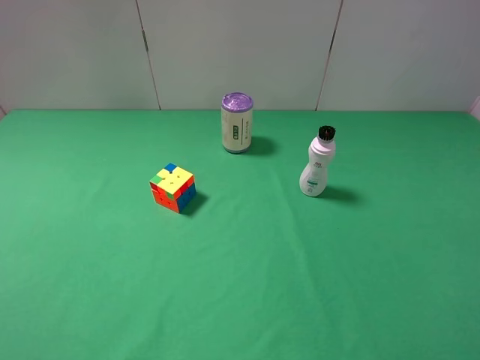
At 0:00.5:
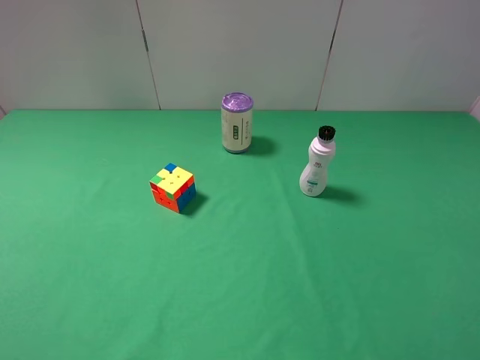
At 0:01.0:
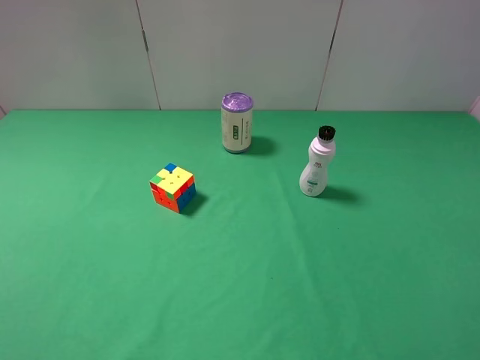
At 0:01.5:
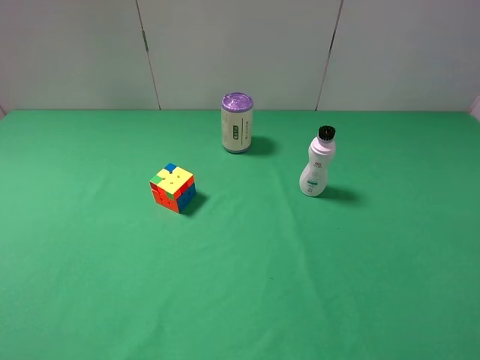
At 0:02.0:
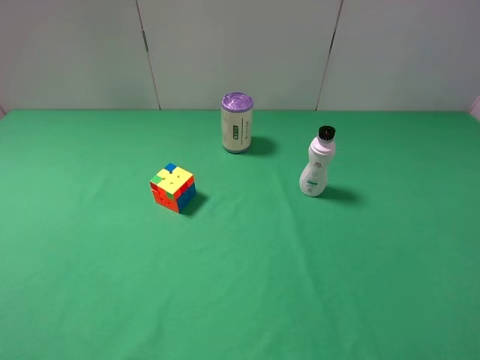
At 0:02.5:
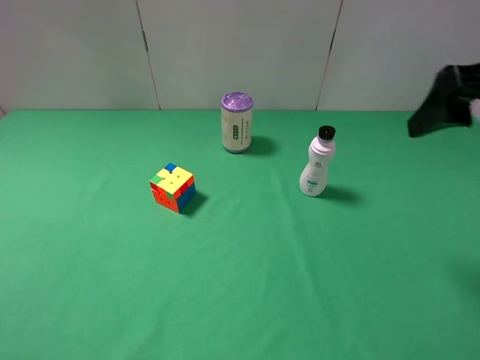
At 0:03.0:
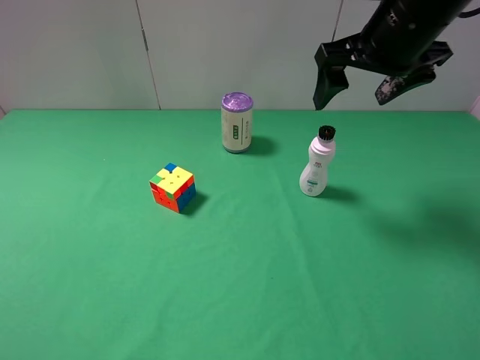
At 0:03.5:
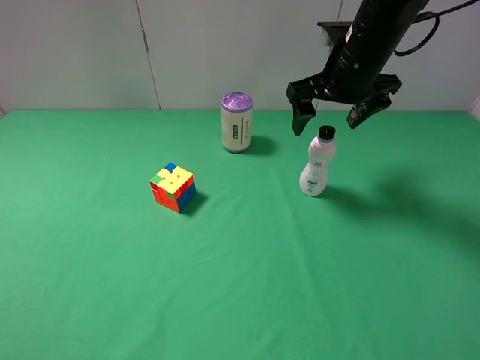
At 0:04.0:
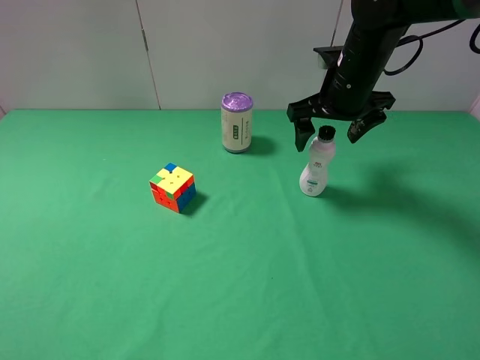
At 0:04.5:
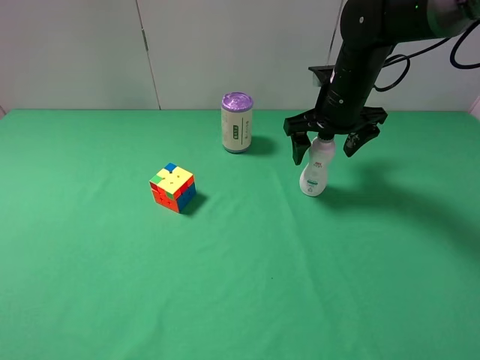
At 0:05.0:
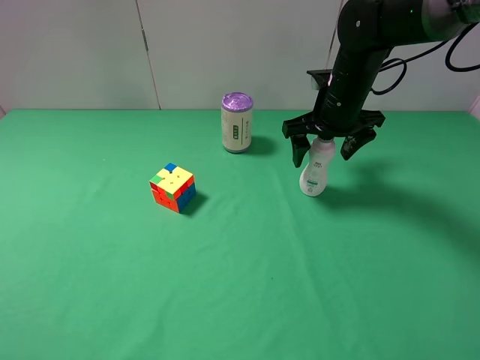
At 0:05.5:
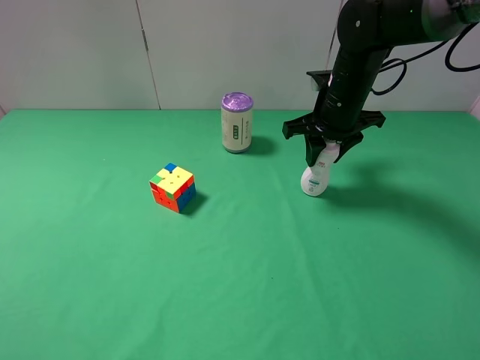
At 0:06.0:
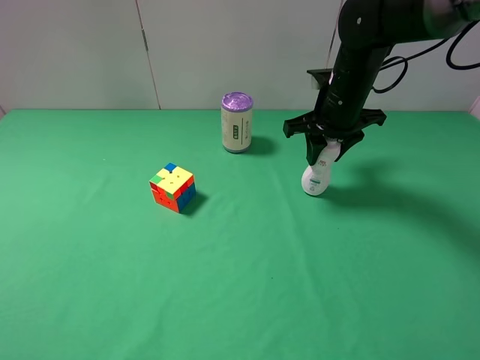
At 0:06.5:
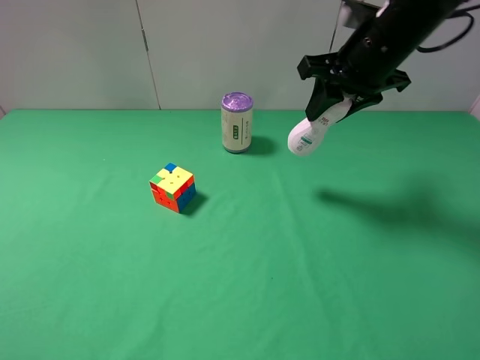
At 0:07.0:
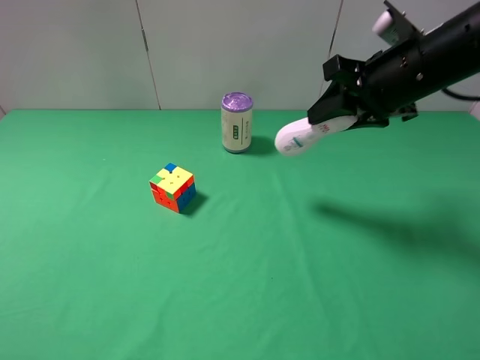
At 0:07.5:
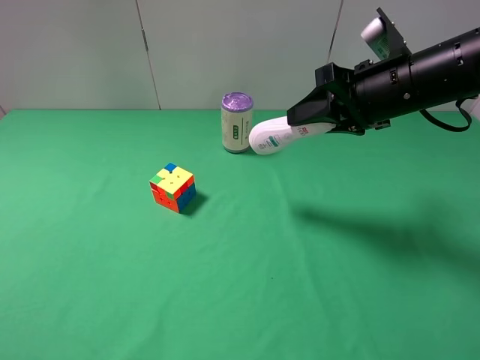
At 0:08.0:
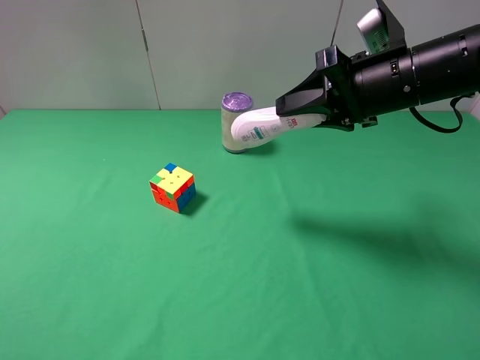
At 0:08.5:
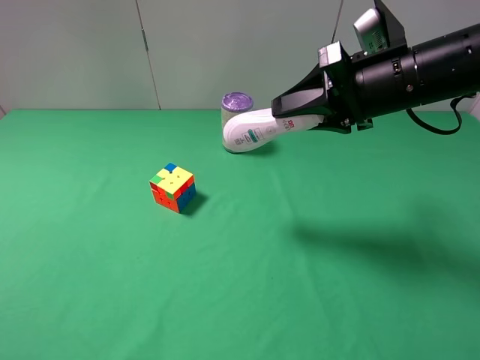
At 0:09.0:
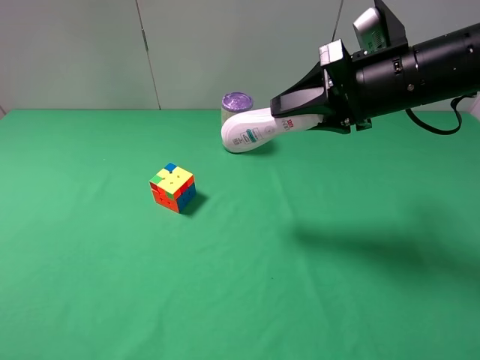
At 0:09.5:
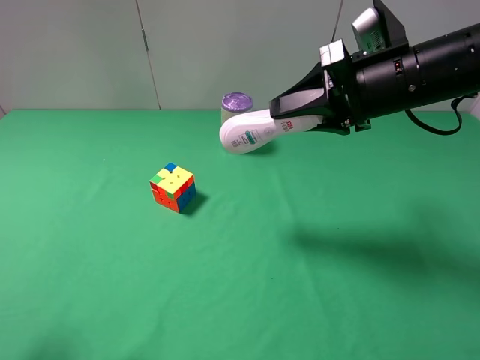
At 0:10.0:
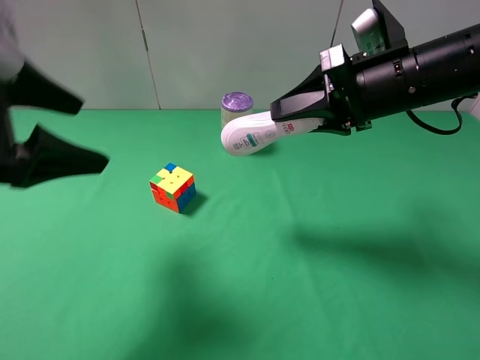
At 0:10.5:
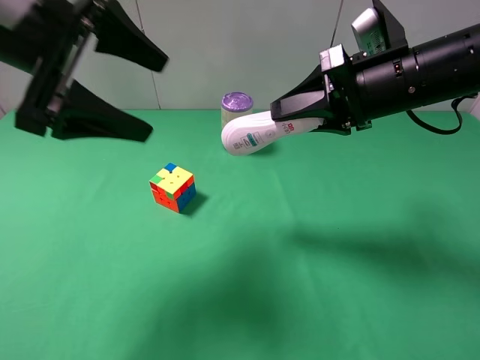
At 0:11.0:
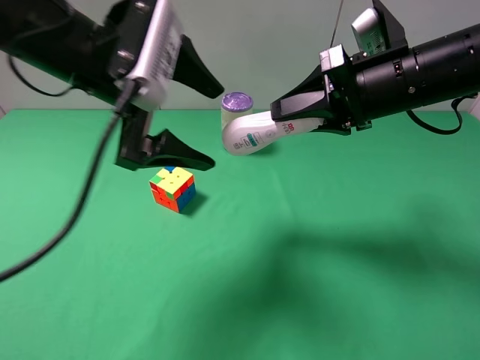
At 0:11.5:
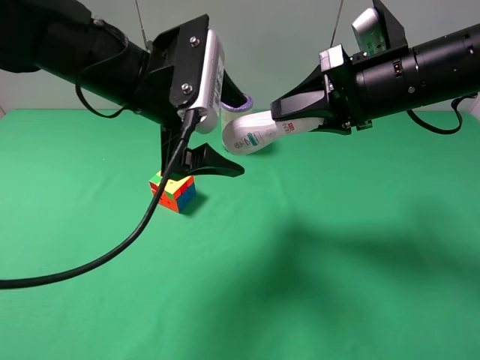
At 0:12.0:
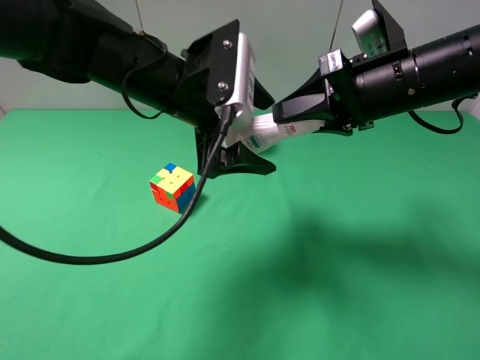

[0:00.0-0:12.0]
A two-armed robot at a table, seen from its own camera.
Task of the whole recording: use the right gripper to pick up the item and transfer it from the right gripper to the left gripper.
0:02.0 to 0:04.0: The right gripper shifts about 35 cm forward and to the left.
0:04.0 to 0:06.0: The right gripper closes.
0:06.0 to 0:08.0: The right gripper goes approximately 10 cm backward and upward.
0:08.0 to 0:10.0: The left gripper travels forward by approximately 20 cm.
0:10.0 to 0:12.0: The left gripper goes some 20 cm to the right and forward.

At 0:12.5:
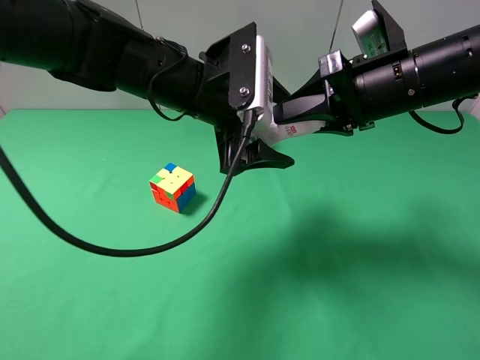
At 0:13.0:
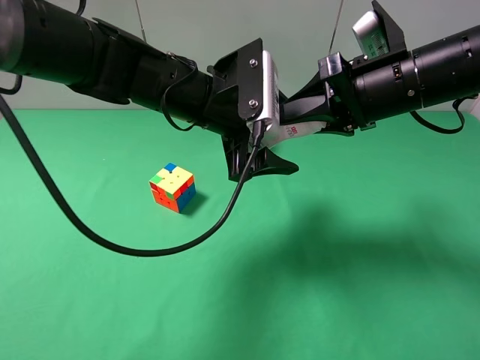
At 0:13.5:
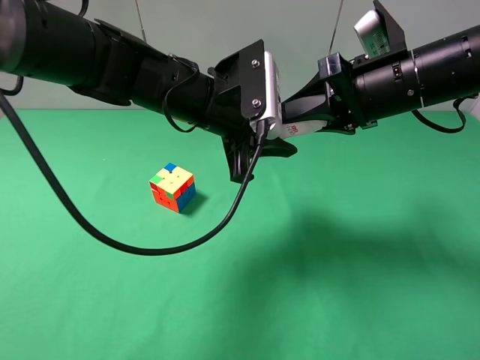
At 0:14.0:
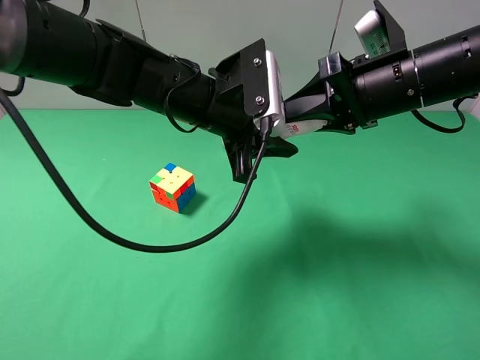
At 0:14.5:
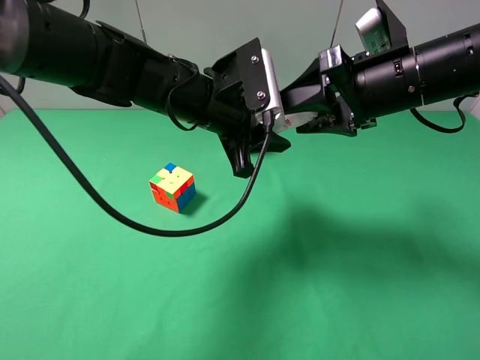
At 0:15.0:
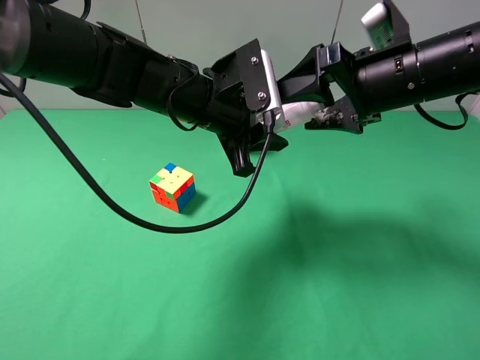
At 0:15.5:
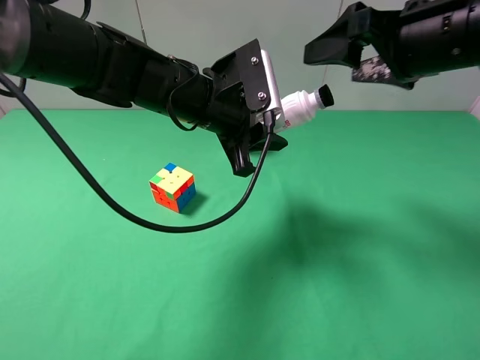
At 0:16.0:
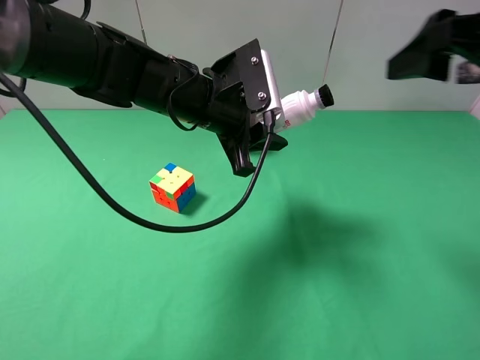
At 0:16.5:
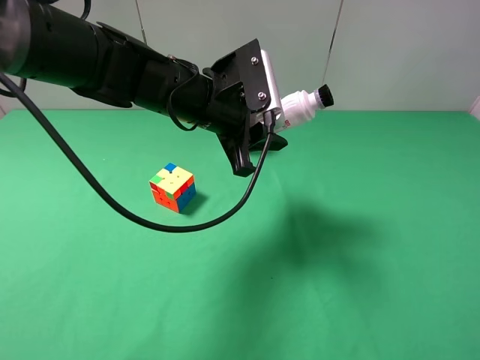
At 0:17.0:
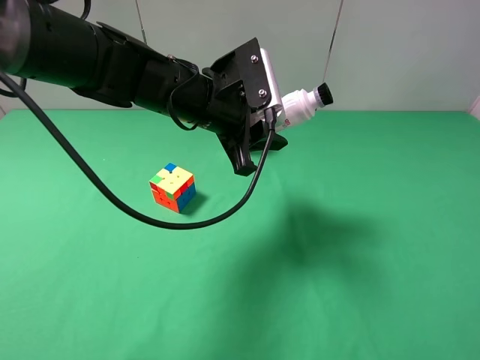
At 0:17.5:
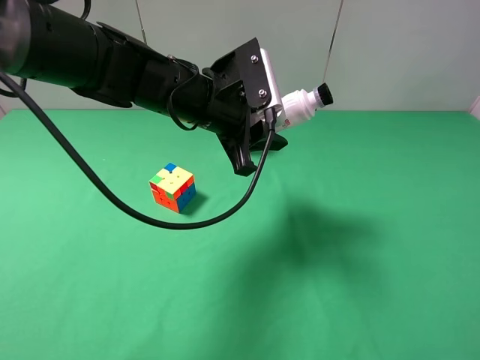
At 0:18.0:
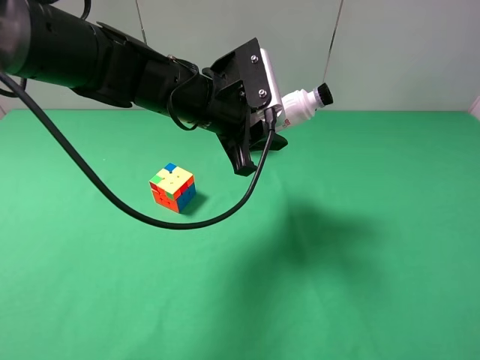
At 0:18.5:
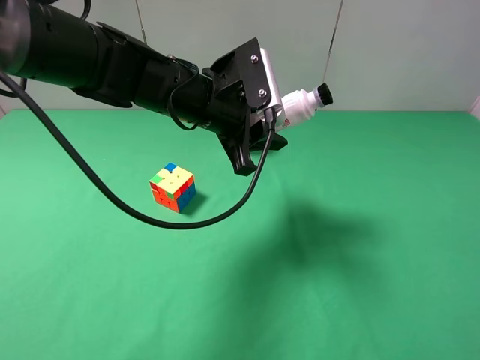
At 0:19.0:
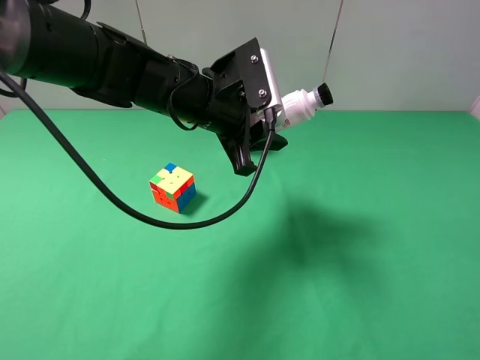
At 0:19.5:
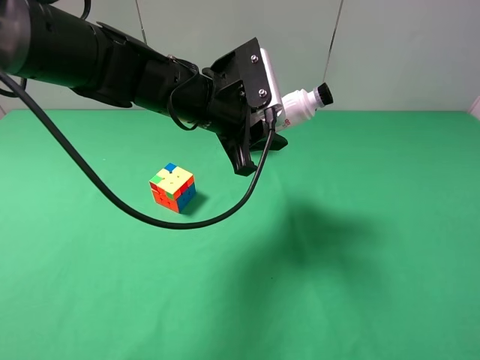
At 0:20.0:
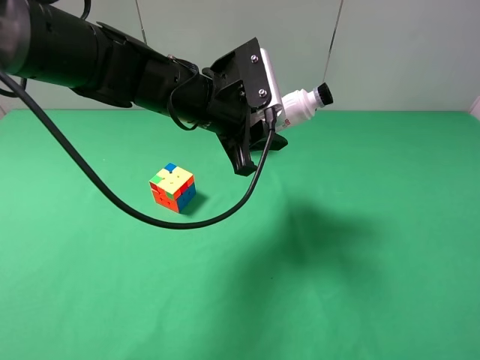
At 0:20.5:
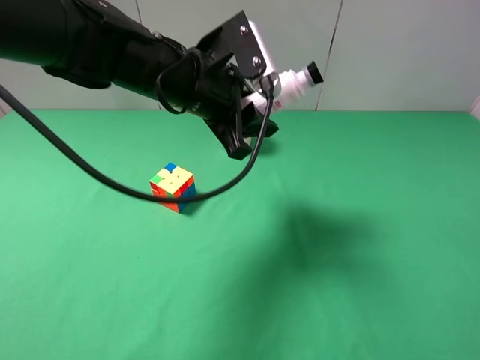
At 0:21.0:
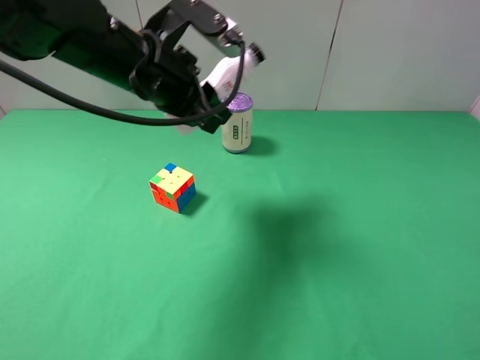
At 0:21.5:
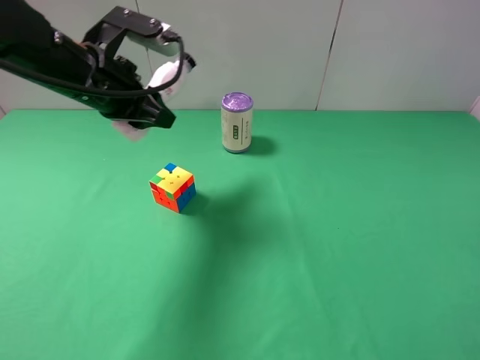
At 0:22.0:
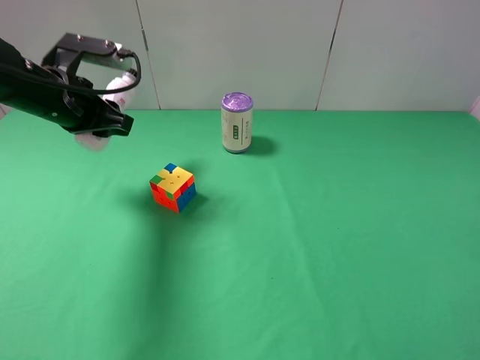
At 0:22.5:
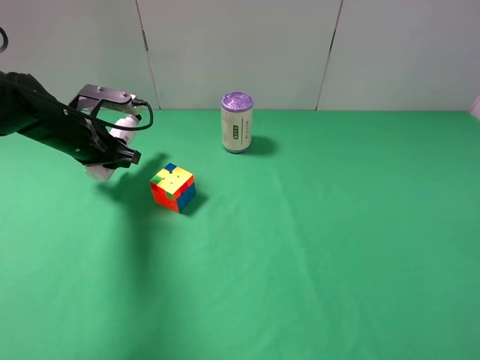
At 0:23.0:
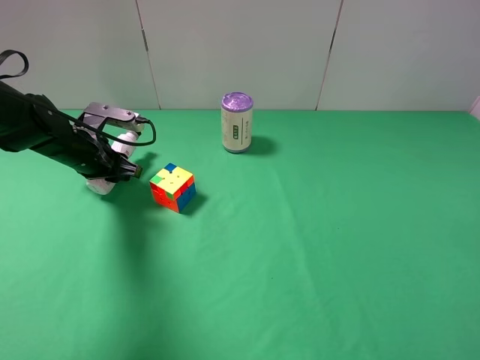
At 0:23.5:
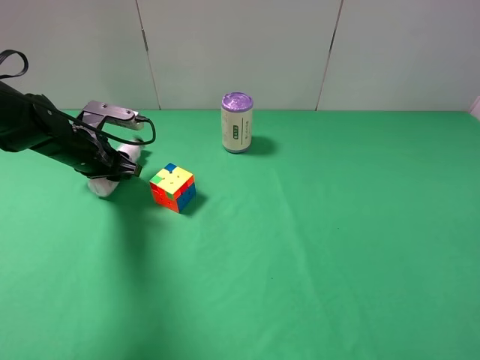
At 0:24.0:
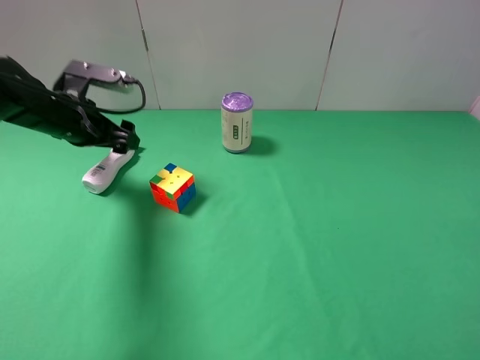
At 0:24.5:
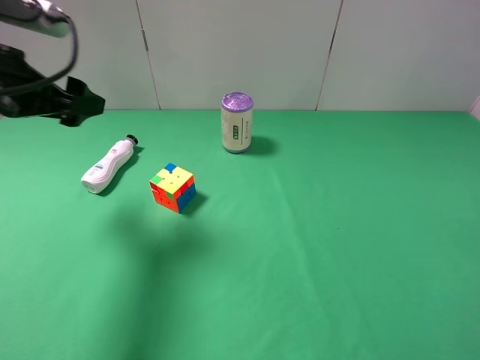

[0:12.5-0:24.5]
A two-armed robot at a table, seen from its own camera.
Task of the whole recording: use the right gripper to pick up the item and transfer it from the right gripper to the left gripper.
Step, 0:12.5 to 0:15.0: Pass the shampoo to the left gripper.
Step, 0:15.5 to 0:23.5: The left gripper places shampoo on the left side of the table.
0:12.5 to 0:14.5: The right gripper opens, while the left gripper closes.
0:14.5 to 0:16.5: The right gripper shifts some 25 cm backward and to the right, and opens its fingers.
0:16.5 to 0:18.5: The right gripper heads downward, covering some 5 cm.
0:20.5 to 0:22.5: The left gripper is displaced to the left and downward by approximately 20 cm.
0:22.5 to 0:24.5: The left gripper moves upward and backward, some 20 cm, and opens.

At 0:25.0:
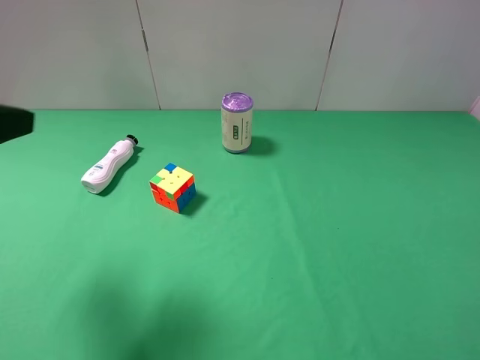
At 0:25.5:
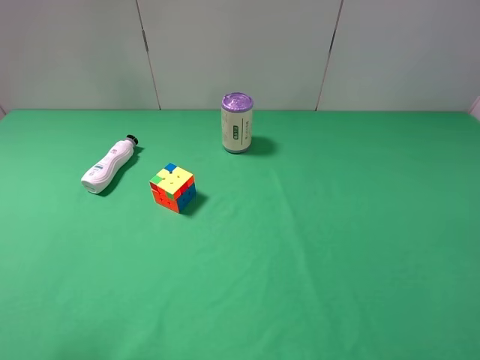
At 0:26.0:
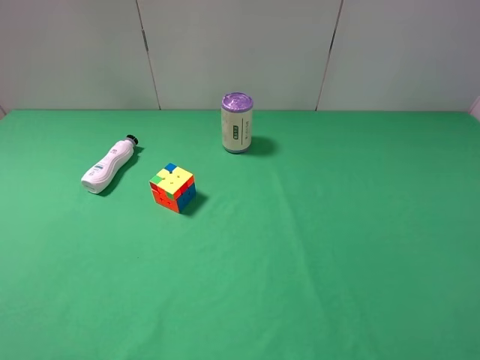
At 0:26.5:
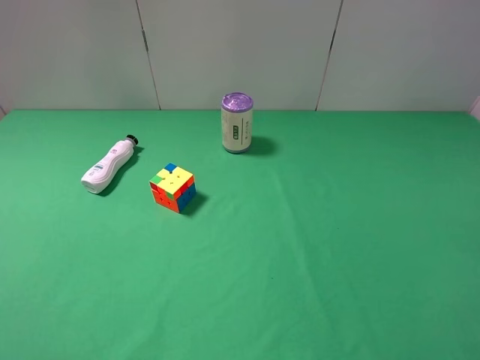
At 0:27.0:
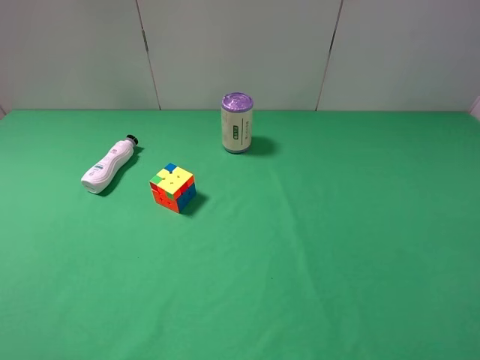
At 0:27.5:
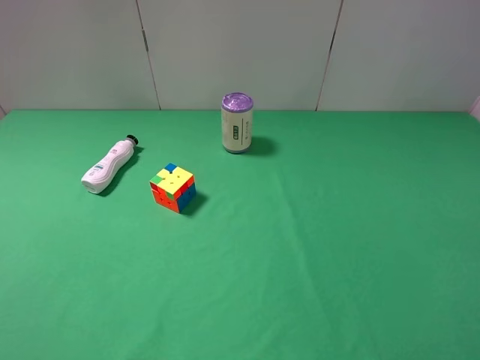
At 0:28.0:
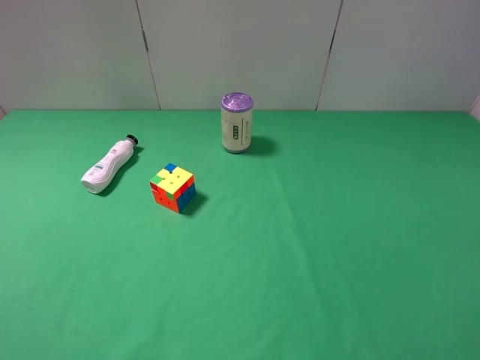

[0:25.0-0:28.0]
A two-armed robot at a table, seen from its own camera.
Task of the whole recording: use the right gripper to pick up the item and transfer it from the right gripper to the left gripper.
0:25.0 to 0:26.5: The left gripper moves backward, some 10 cm.
